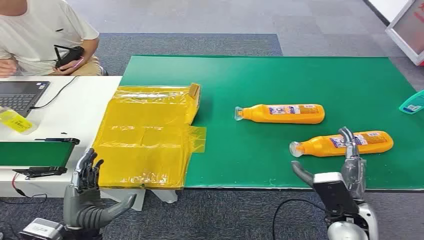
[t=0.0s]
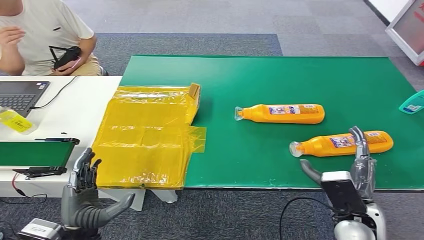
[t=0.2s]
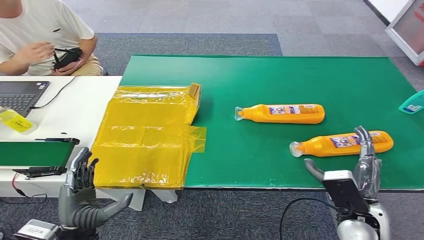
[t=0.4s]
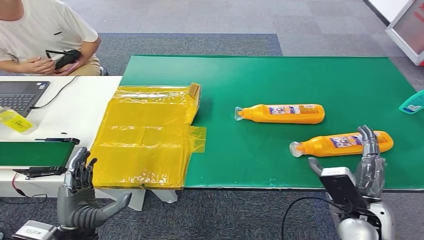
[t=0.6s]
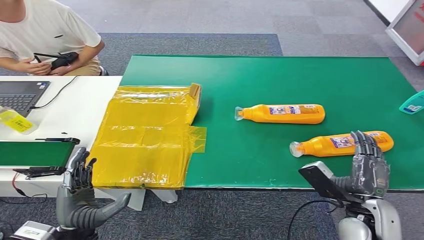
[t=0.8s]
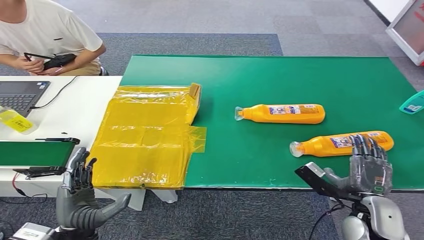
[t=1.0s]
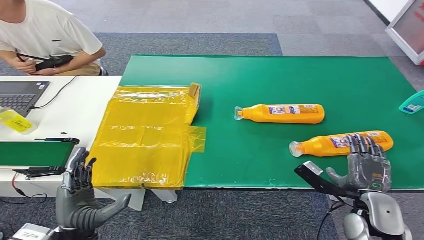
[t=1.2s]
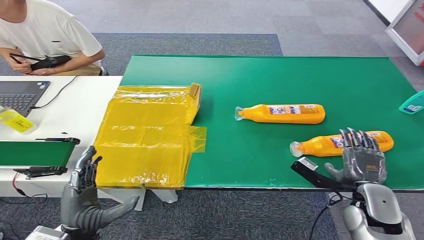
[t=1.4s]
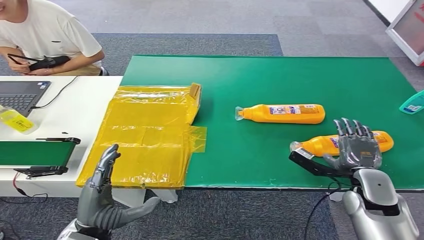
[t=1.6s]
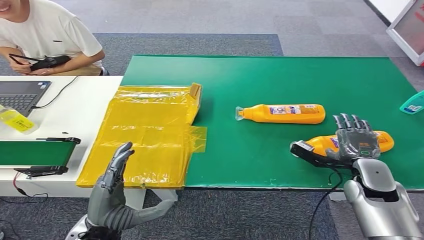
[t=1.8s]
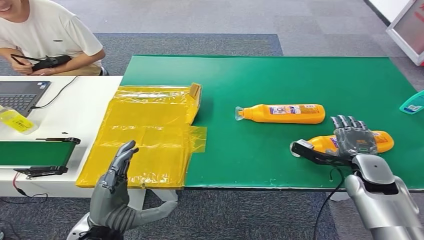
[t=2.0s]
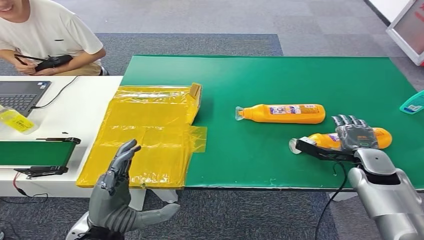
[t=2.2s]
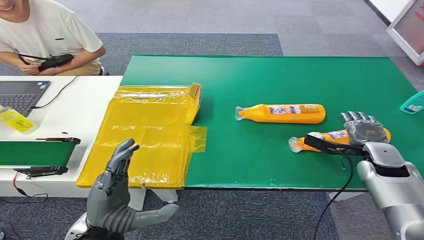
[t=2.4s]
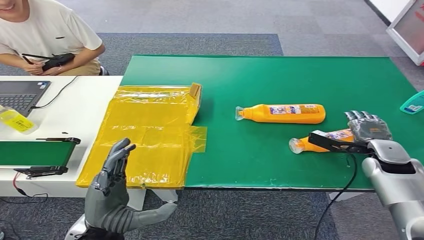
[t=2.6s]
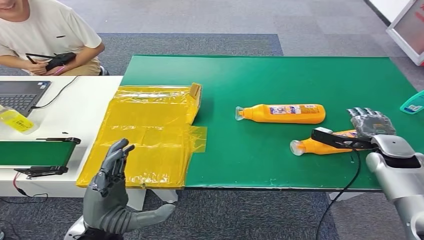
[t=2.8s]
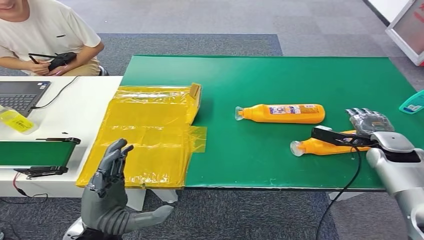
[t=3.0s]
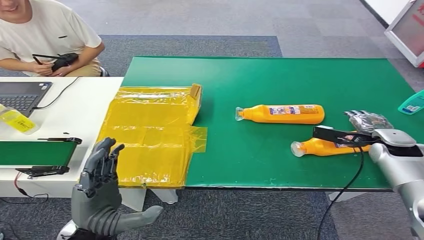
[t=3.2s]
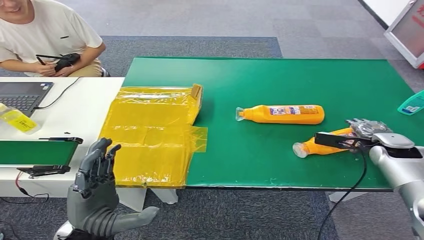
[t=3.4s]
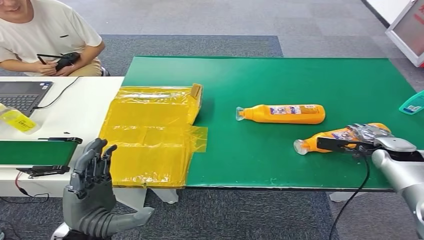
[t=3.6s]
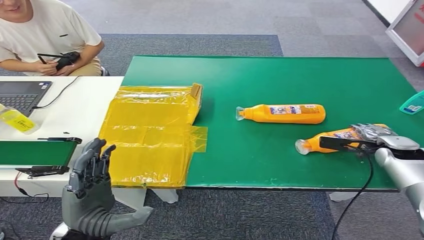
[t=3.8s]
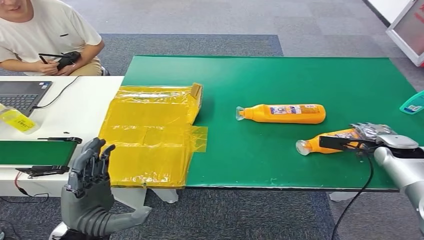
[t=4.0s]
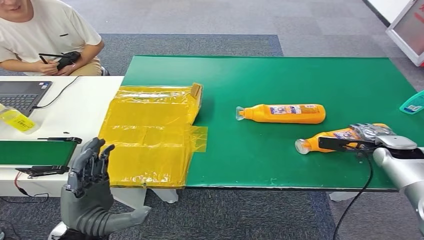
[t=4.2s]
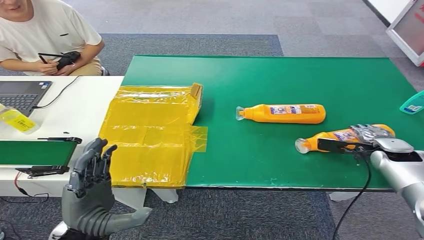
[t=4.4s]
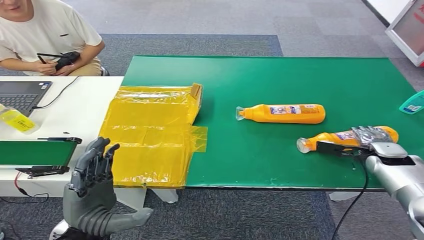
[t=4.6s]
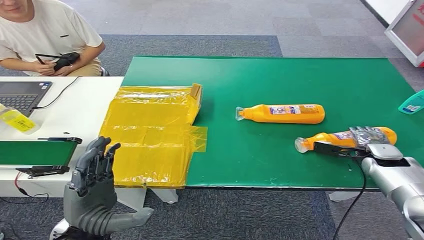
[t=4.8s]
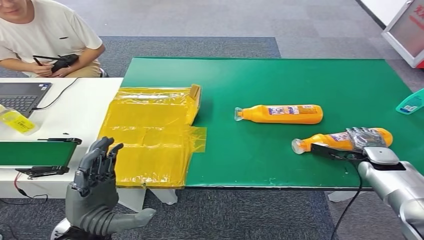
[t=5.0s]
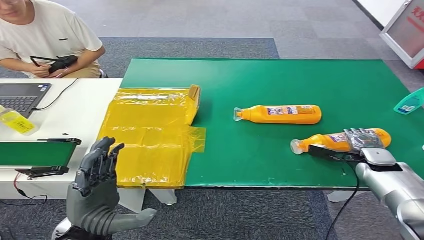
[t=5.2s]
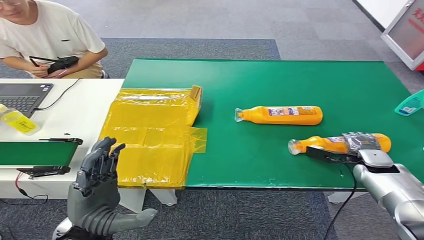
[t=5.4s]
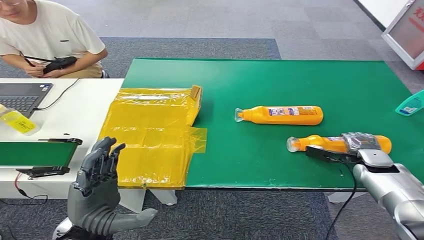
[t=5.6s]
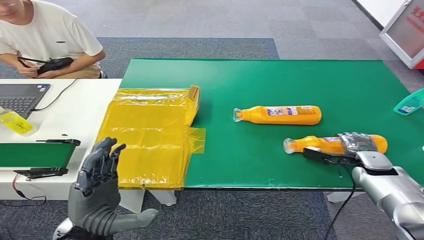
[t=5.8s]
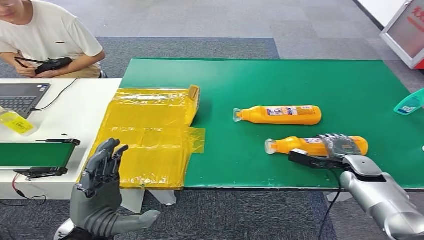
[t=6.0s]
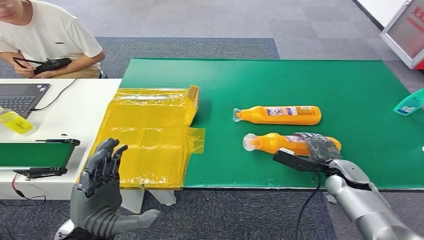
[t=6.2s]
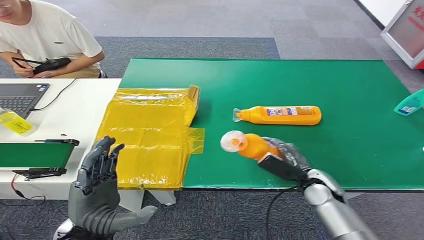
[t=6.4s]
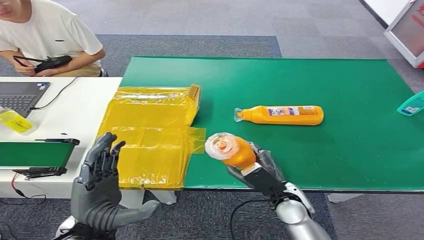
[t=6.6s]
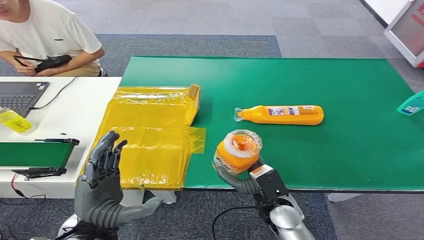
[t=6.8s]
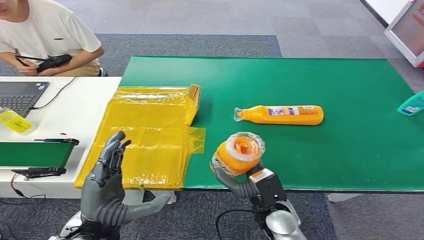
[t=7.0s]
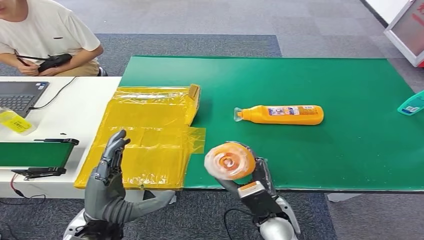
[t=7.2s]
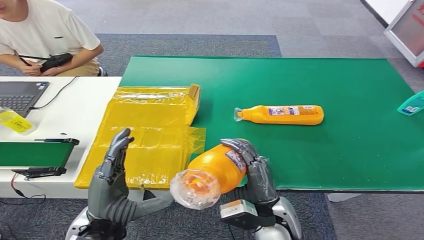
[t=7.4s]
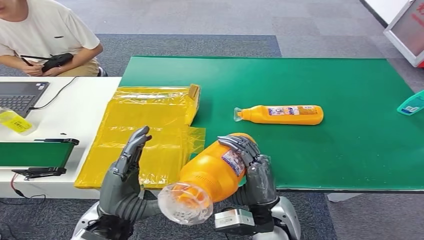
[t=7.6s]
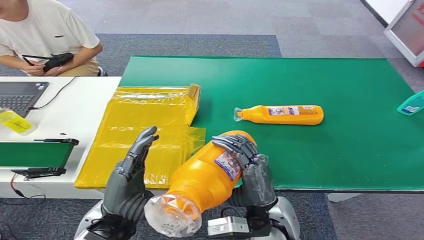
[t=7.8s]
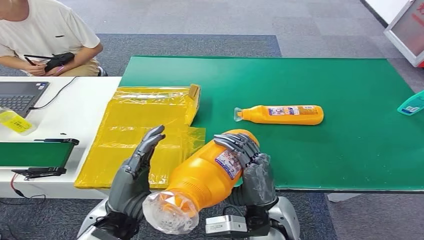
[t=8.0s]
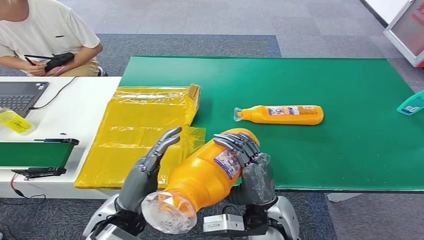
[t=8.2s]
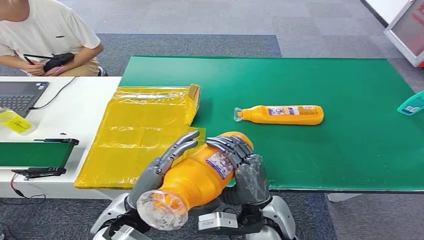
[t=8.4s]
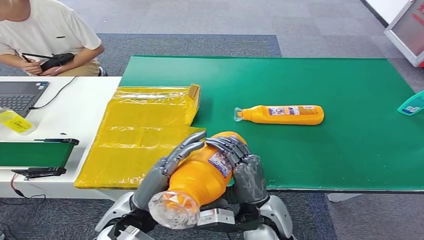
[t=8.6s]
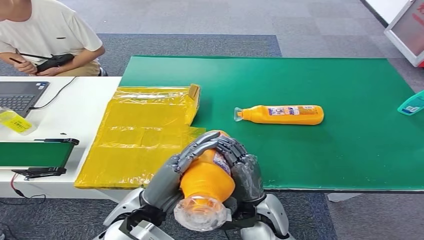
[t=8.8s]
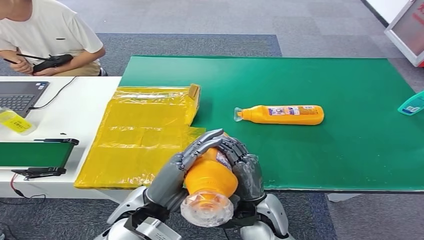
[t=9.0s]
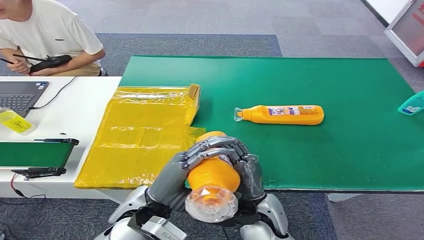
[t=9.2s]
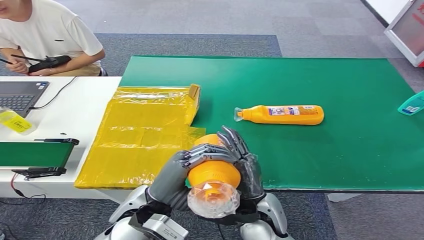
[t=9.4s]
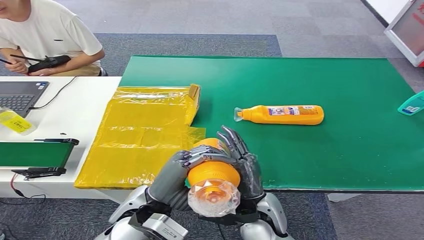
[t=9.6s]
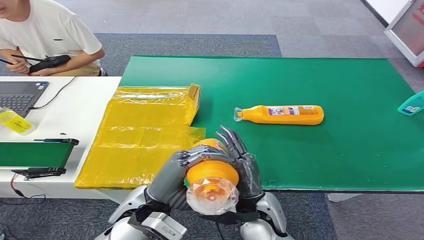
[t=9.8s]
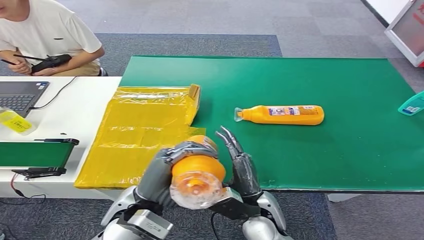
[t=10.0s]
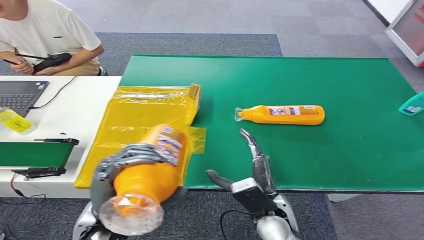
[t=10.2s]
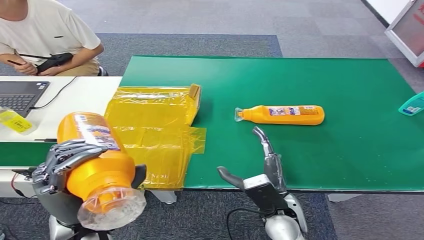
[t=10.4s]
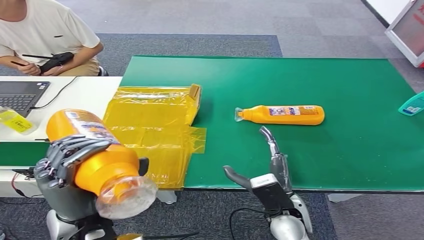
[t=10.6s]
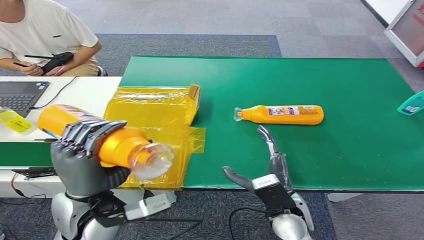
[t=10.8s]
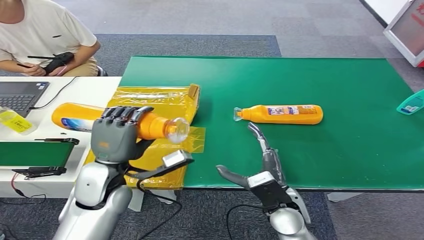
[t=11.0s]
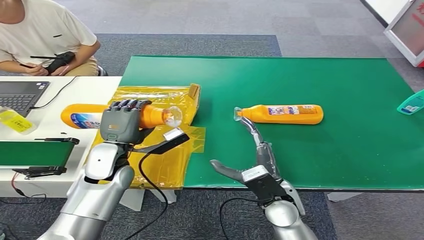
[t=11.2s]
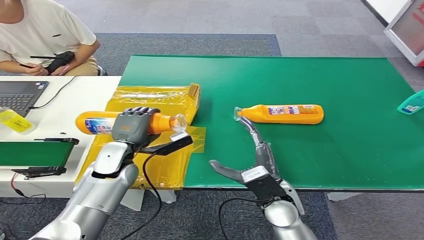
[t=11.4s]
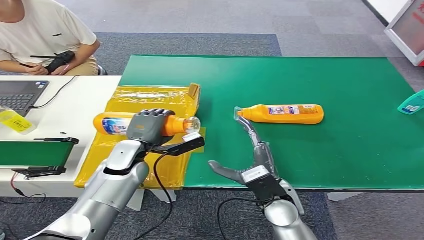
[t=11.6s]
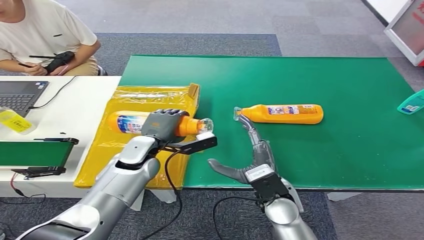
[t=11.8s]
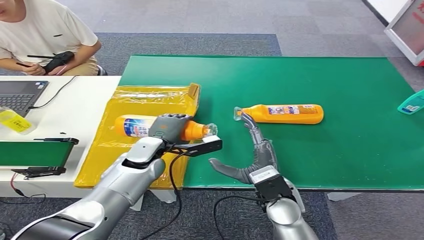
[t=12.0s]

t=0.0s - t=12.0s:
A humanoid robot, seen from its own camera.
Step, t=0.0s - t=7.6s: Pick up the bottle from the table.
t=1.6s - t=3.0s: The left hand moves some 5 cm, while the right hand shifts roughly 15 cm forward and to the right.
t=3.0s - t=4.4s: There are only small adjustments of the hands.
t=7.6s - t=9.0s: The left hand heads to the right, covering roughly 5 cm.
t=9.0s - t=10.4s: The left hand heads to the left, covering some 5 cm.
t=10.4s - t=12.0s: The left hand shifts about 20 cm forward and downward.

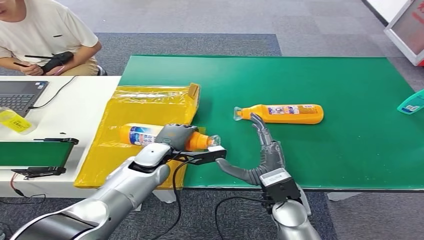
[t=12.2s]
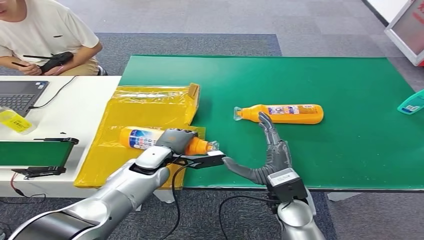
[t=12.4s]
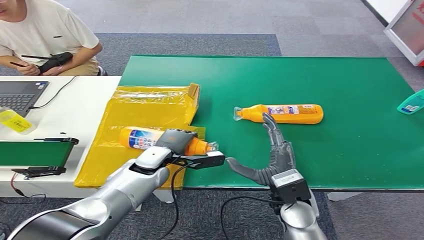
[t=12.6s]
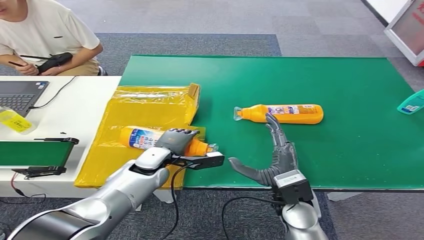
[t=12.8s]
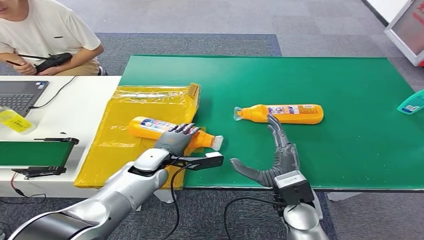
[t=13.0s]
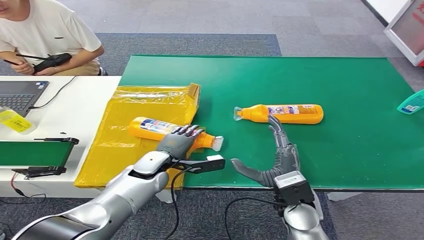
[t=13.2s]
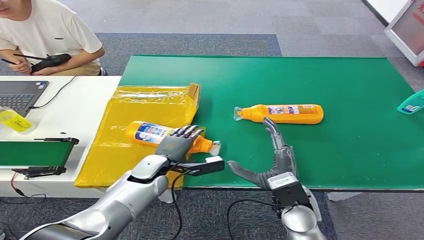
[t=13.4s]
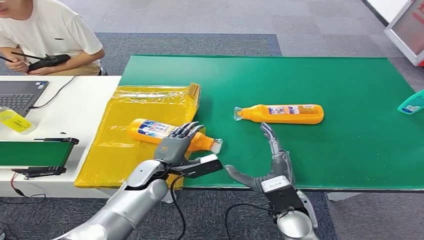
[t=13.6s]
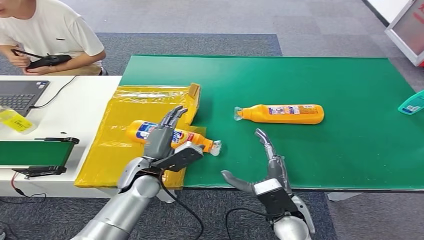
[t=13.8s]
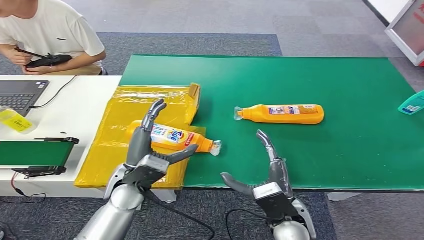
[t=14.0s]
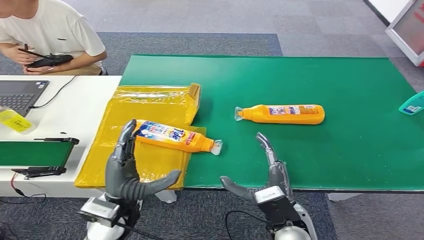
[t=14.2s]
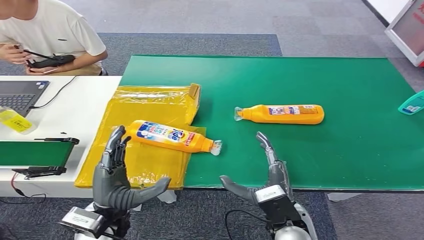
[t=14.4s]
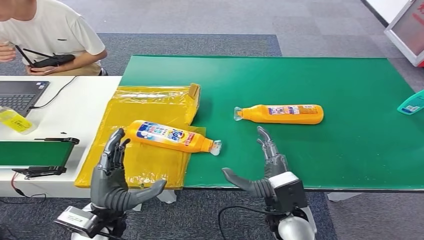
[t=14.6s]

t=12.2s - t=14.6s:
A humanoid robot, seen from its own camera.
Step, t=12.2s - t=14.6s: Turn the bottle to the front side.
t=12.2s - t=13.4s: The hands stay close to where they were, moving slightly.
t=13.4s - t=14.6s: The left hand travels backward and to the left by about 15 cm.
